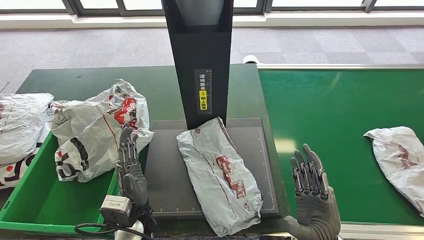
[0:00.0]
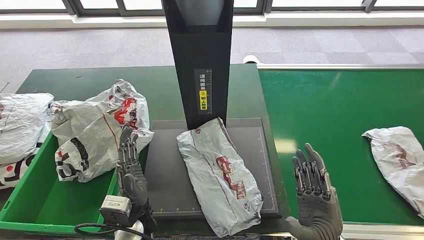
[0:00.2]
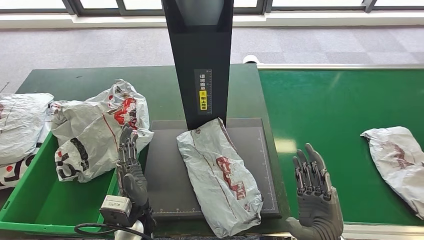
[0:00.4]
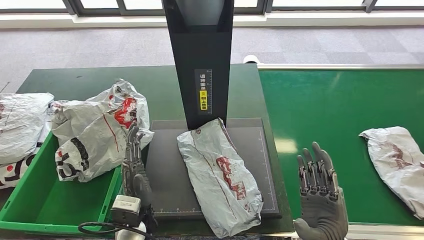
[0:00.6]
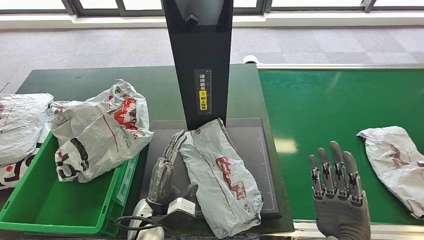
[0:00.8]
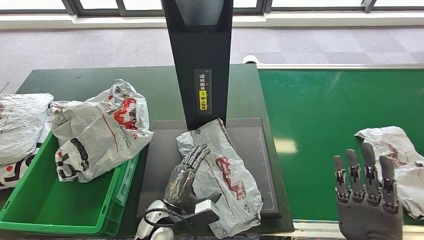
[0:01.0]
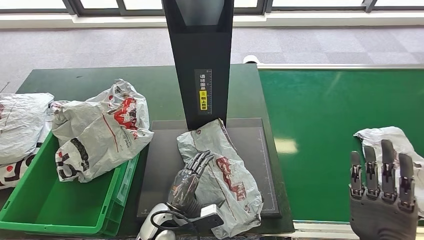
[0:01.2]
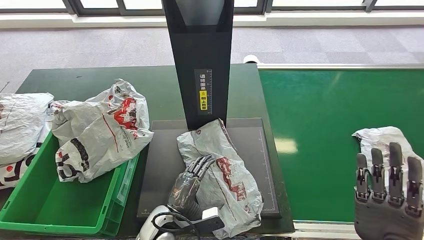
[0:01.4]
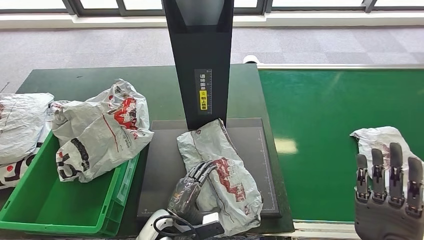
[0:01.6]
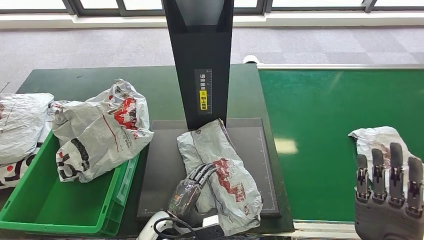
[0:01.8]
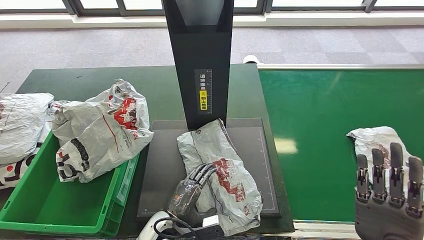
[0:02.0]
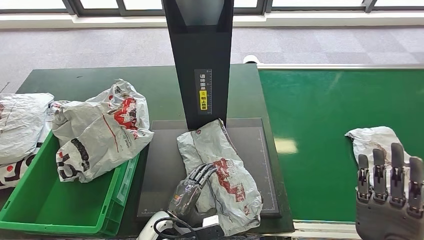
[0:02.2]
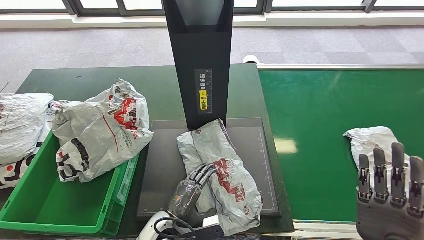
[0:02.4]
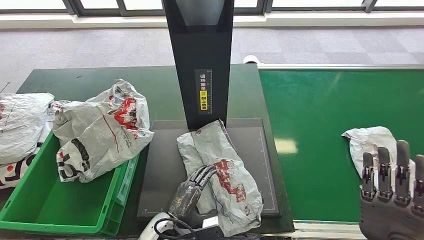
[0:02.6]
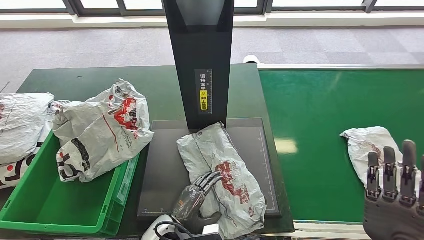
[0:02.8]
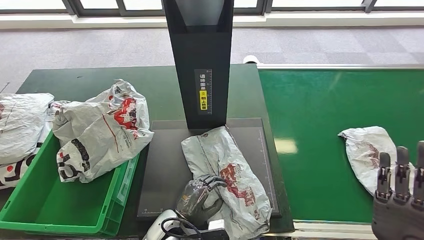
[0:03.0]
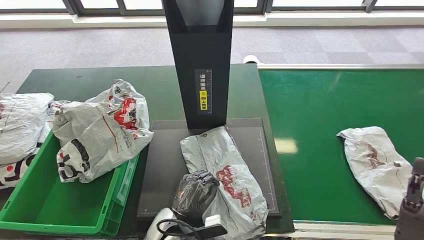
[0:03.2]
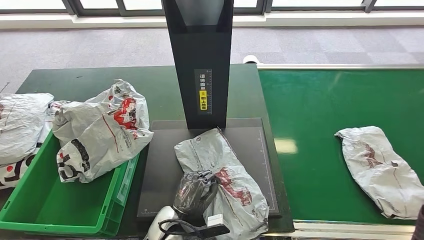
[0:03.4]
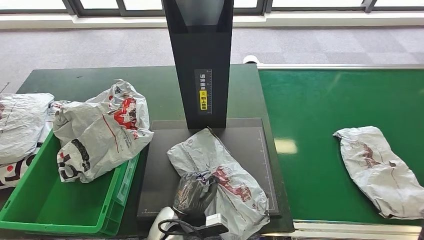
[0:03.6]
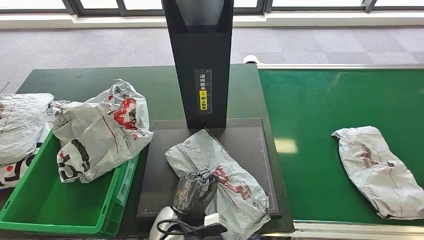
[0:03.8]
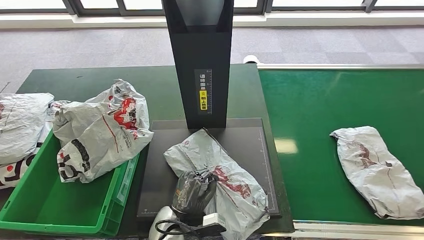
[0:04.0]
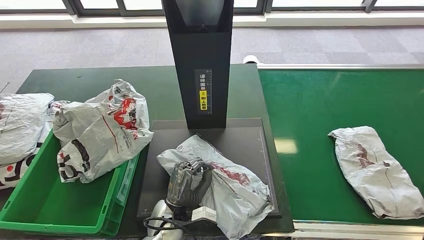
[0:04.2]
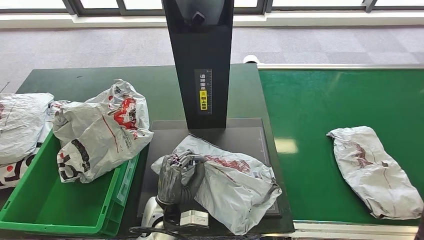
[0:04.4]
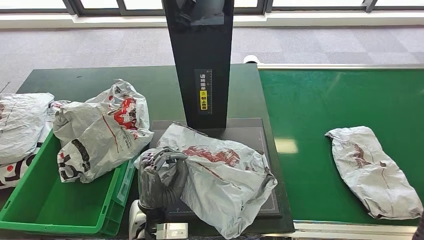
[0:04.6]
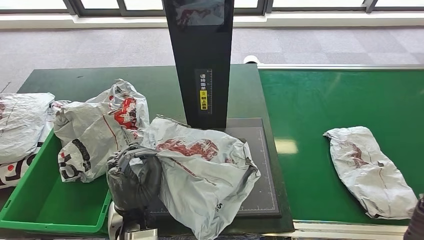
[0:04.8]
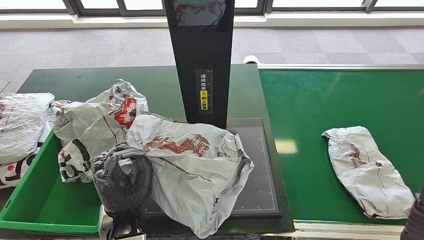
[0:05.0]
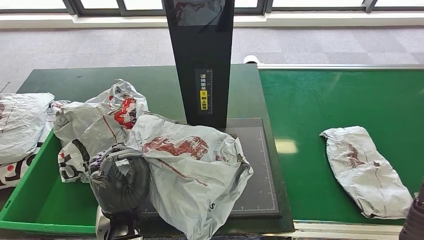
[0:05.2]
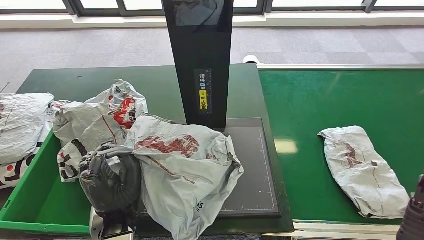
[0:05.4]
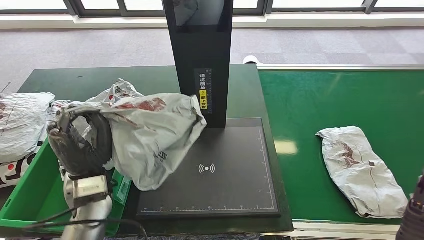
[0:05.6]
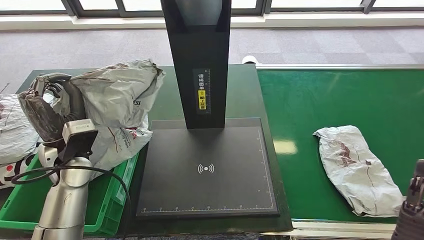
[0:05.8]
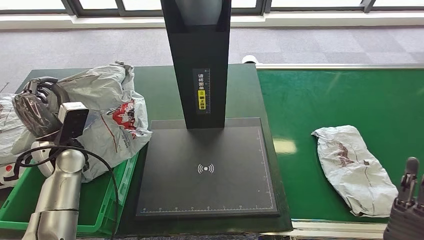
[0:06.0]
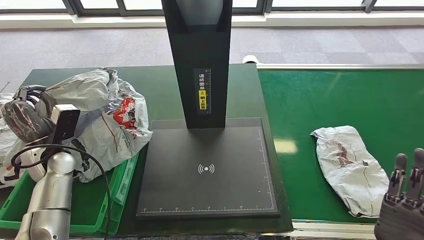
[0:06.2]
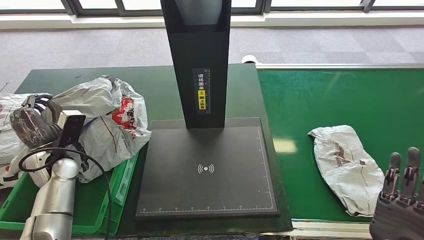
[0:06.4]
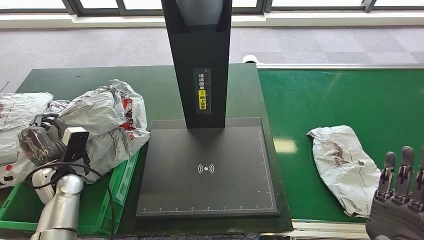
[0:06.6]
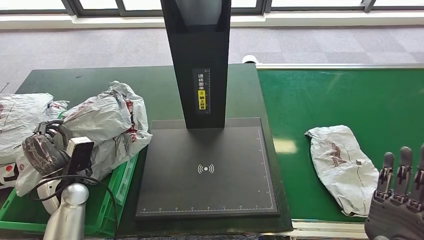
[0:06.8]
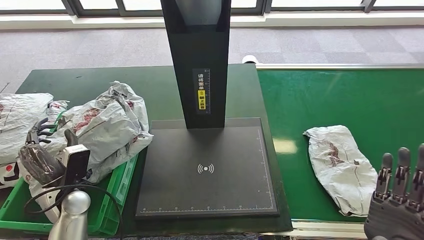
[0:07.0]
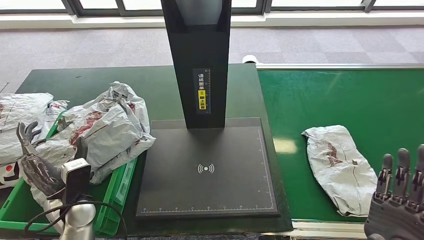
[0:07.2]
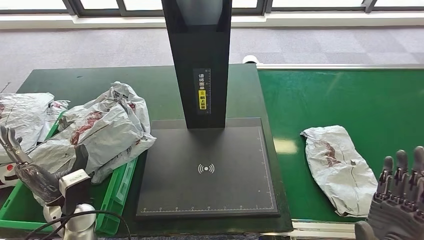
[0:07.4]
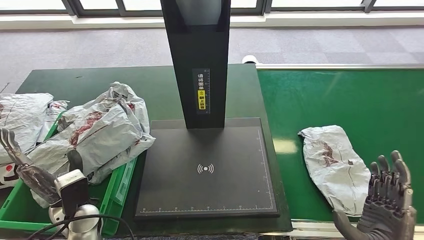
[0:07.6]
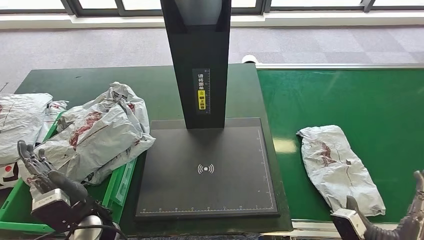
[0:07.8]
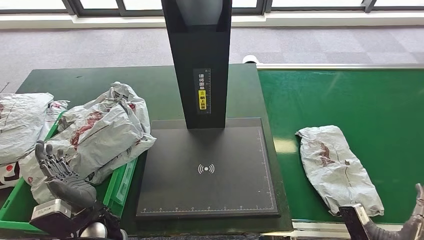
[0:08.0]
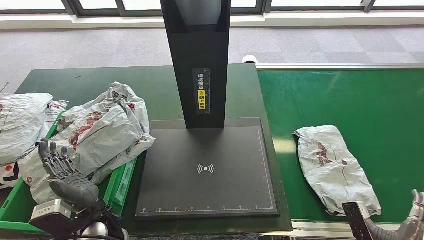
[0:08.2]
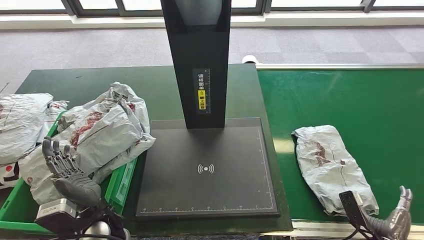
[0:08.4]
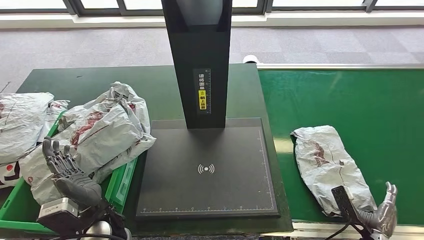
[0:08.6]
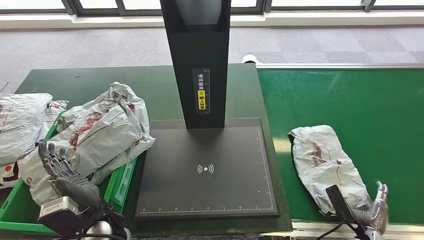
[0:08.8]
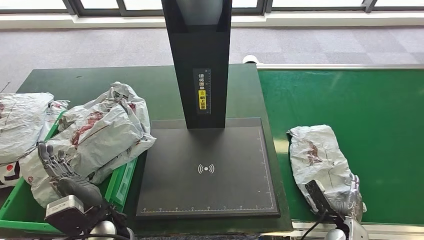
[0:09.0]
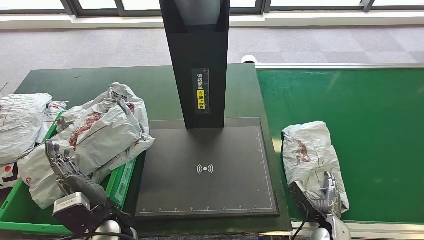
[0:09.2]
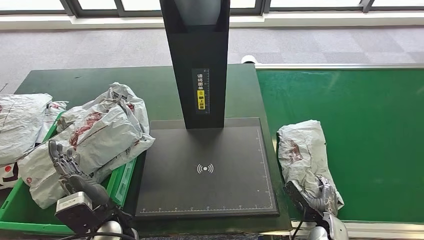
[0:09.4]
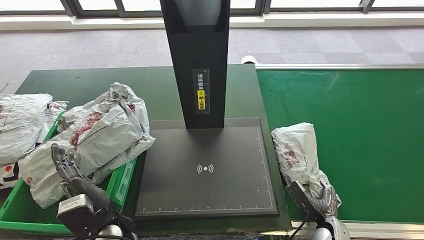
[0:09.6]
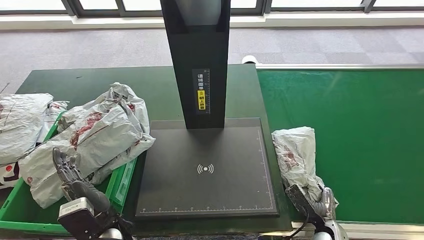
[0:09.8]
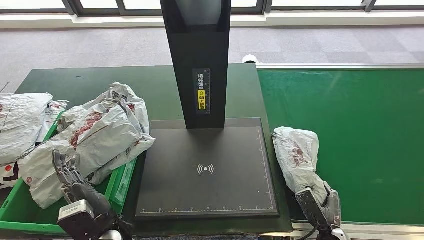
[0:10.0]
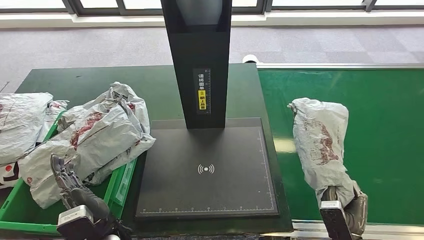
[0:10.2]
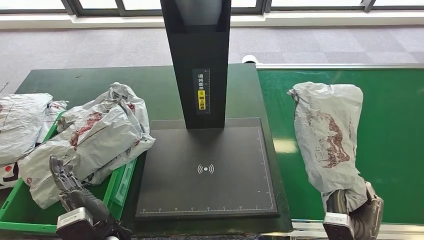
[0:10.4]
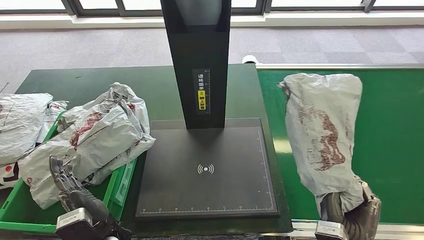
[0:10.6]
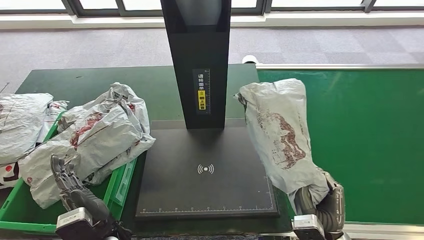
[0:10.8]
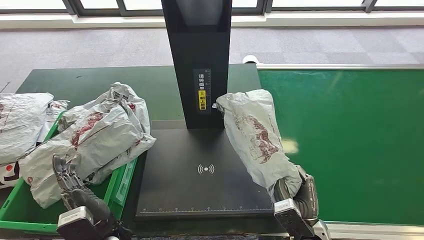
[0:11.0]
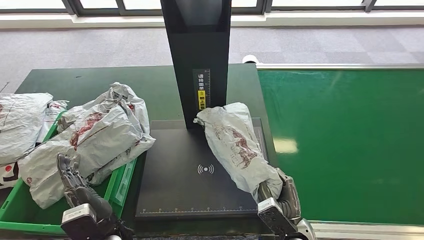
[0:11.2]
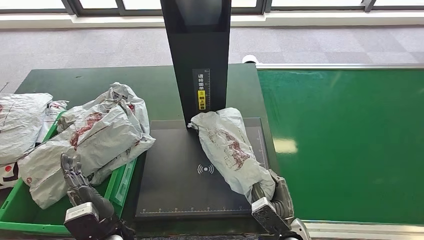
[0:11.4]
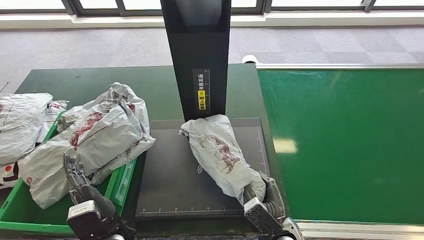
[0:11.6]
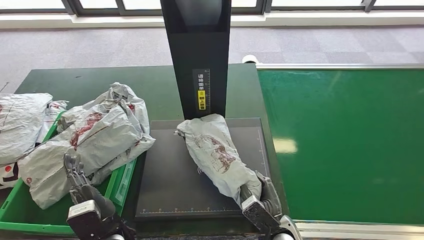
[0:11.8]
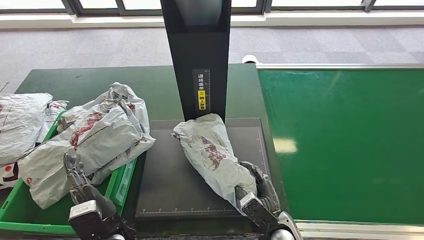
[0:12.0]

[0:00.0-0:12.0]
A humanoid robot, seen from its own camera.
Step, 0:00.0 to 0:04.2: Pick up the parcel from the inbound machine.
Step, 0:05.4 to 0:07.6: Place the parcel into the delivery box.
Step, 0:07.8 to 0:11.2: Pick up the parcel from the conveyor belt.
0:00.0 to 0:01.6: The left hand travels downward and to the right by about 10 cm. The right hand moves to the right and upward, roughly 10 cm.
0:01.6 to 0:03.0: There are only small adjustments of the hands.
0:03.0 to 0:04.4: The right hand ends up some 5 cm from where it was. The left hand goes some 5 cm upward.
0:07.6 to 0:09.0: The right hand moves downward and forward, some 20 cm, while the left hand shifts approximately 5 cm to the right.
0:09.0 to 0:10.4: The right hand travels upward, backward and to the left by approximately 15 cm.
0:10.4 to 0:12.0: The right hand goes roughly 15 cm to the left.

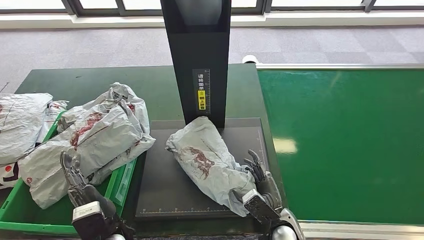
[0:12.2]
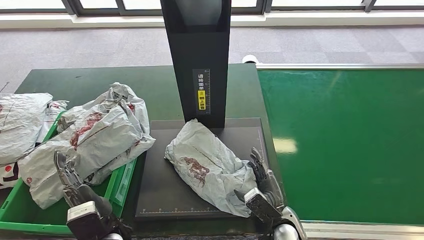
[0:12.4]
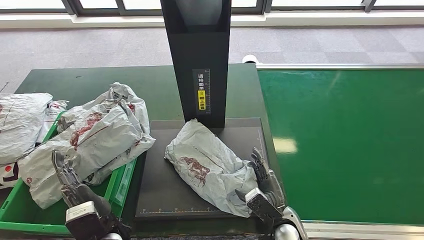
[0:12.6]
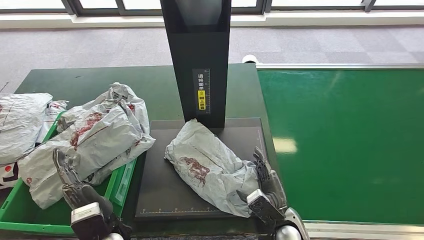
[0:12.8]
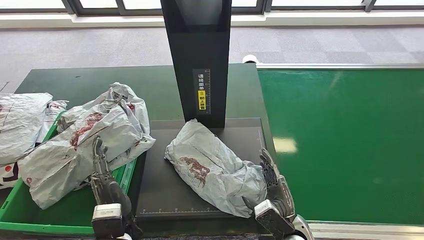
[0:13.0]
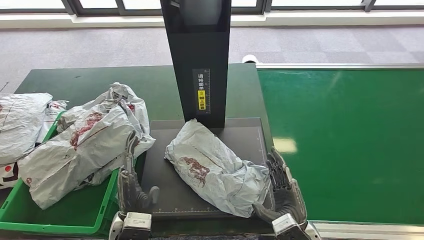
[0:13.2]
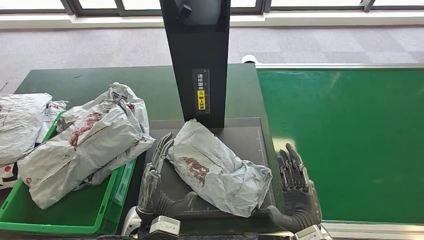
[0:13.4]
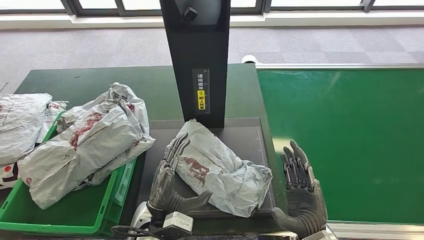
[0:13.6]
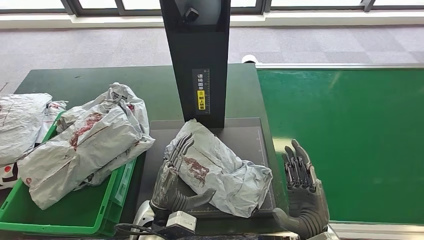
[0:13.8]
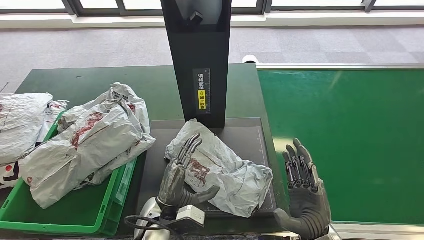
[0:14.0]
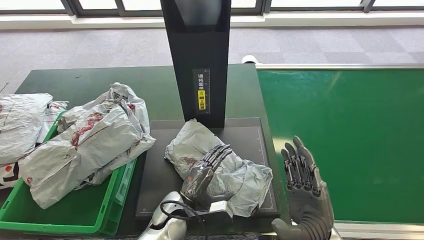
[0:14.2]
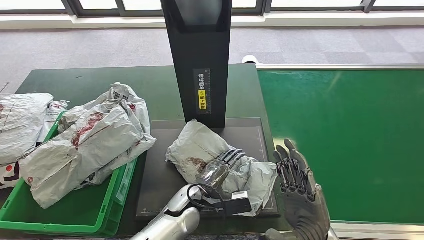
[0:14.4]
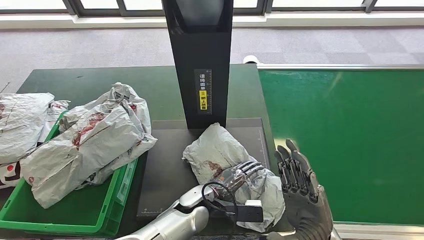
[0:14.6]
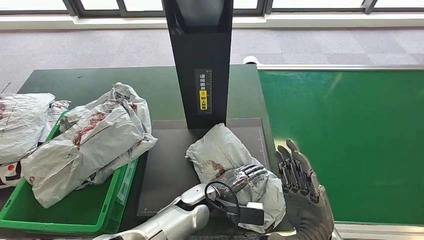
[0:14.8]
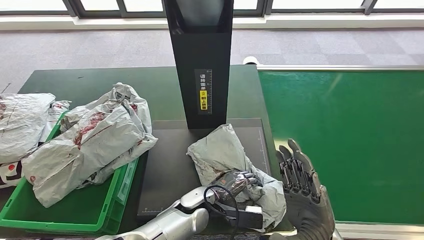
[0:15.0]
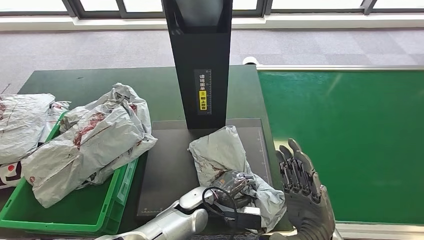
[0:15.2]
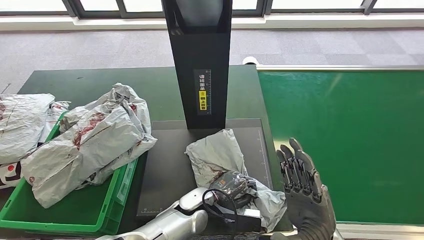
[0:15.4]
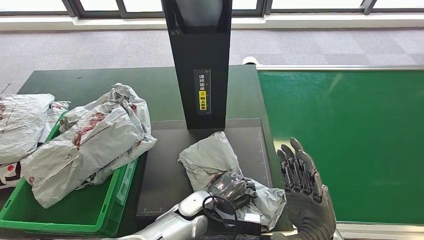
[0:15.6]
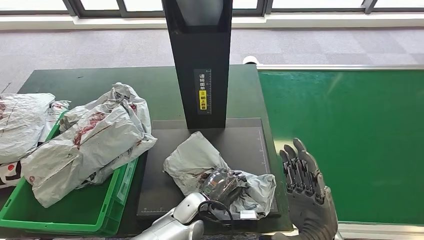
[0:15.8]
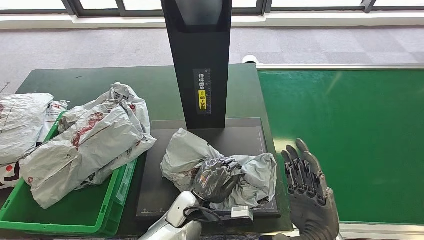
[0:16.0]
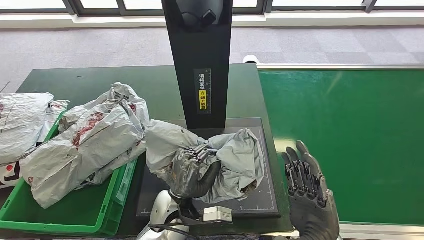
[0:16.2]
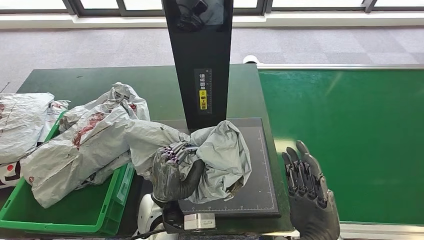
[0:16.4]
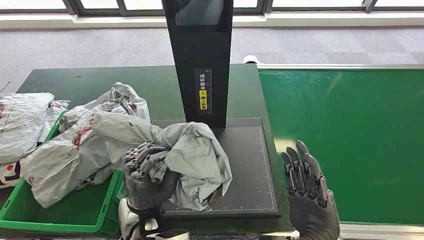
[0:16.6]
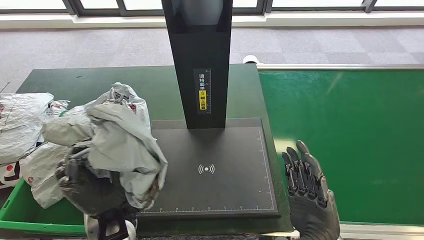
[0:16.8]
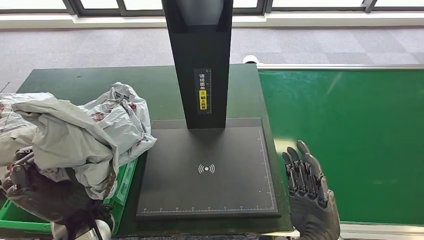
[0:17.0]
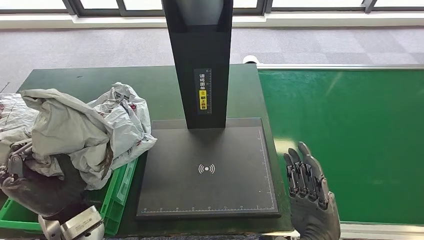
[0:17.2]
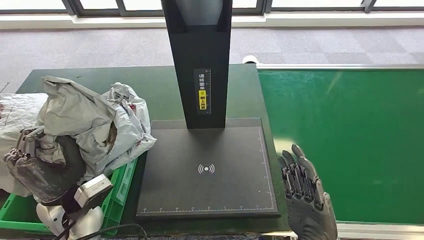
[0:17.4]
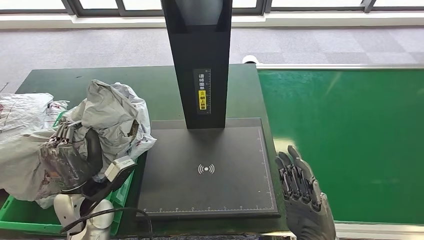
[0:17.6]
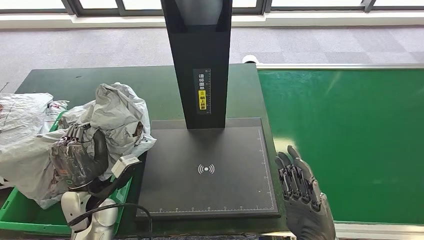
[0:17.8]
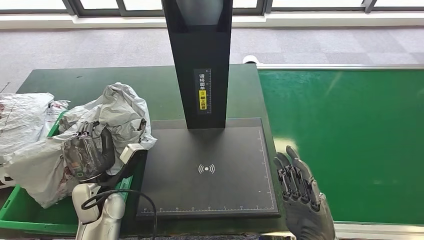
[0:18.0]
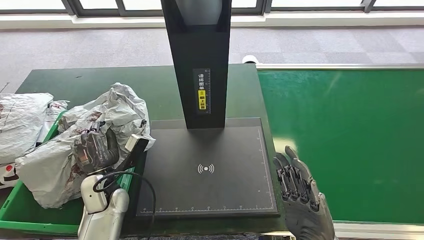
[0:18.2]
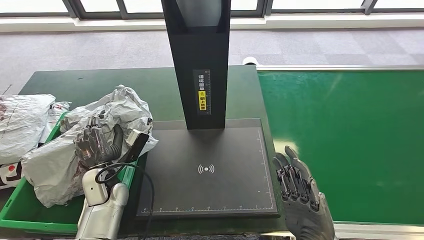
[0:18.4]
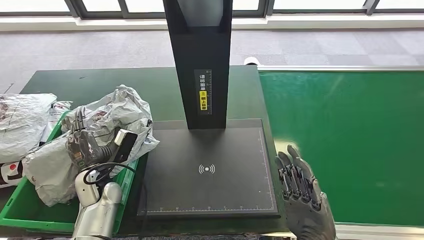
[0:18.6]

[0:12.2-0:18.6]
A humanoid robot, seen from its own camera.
Step, 0:12.2 to 0:13.6: Place the parcel onto the inbound machine.
Step, 0:13.8 to 0:16.4: Pick up the parcel from the inbound machine.
Step, 0:16.6 to 0:18.4: Place the parcel into the delivery box.
0:12.2 to 0:13.8: The left hand travels to the right by some 10 cm. The right hand goes approximately 10 cm upward.
